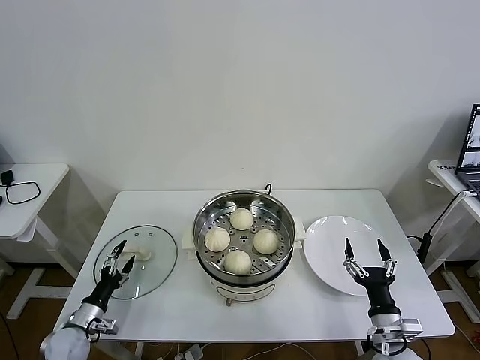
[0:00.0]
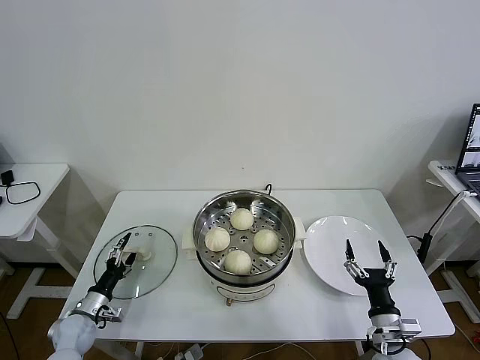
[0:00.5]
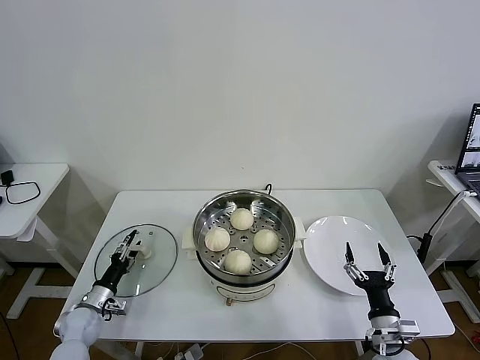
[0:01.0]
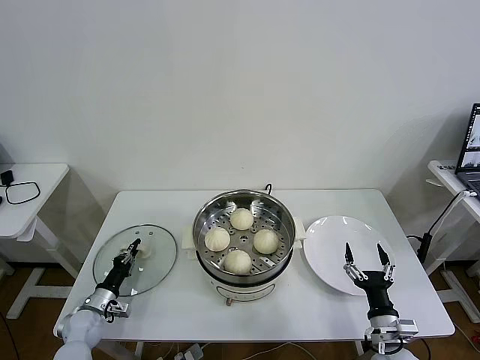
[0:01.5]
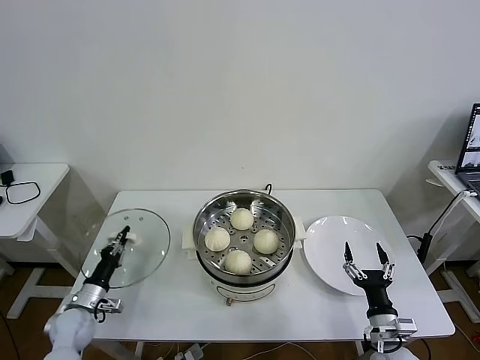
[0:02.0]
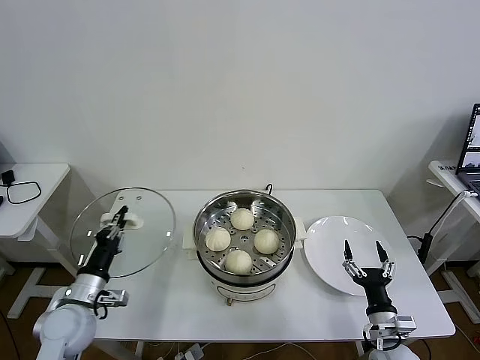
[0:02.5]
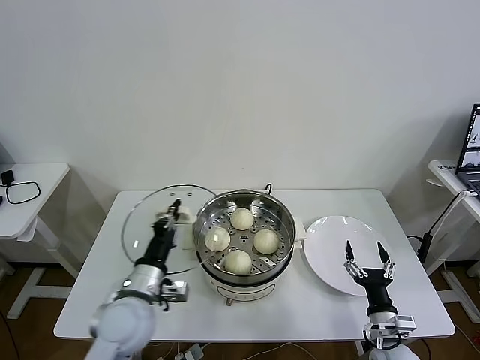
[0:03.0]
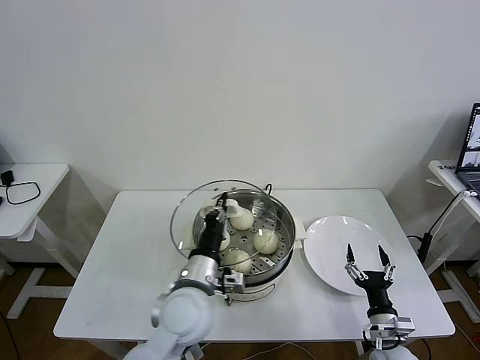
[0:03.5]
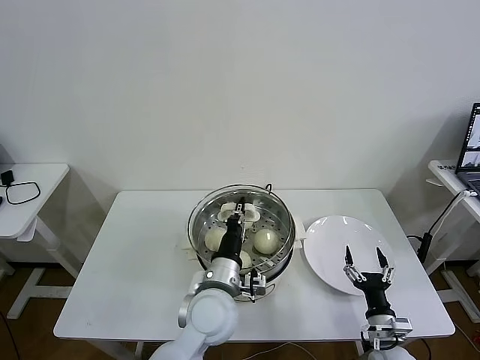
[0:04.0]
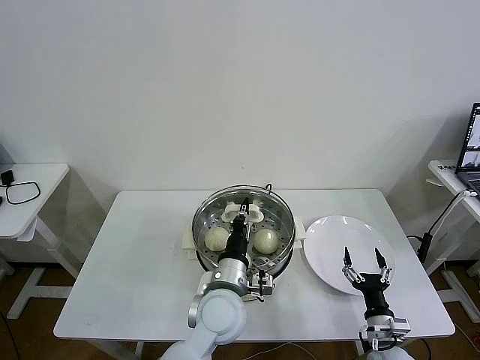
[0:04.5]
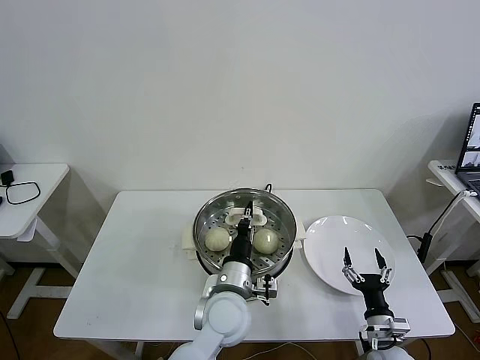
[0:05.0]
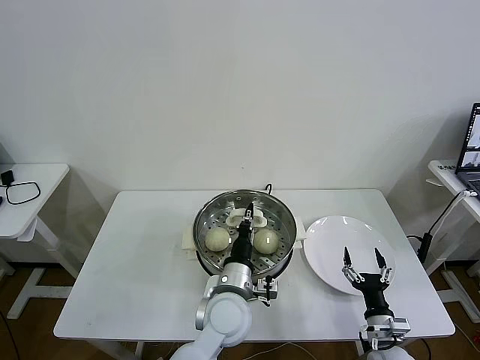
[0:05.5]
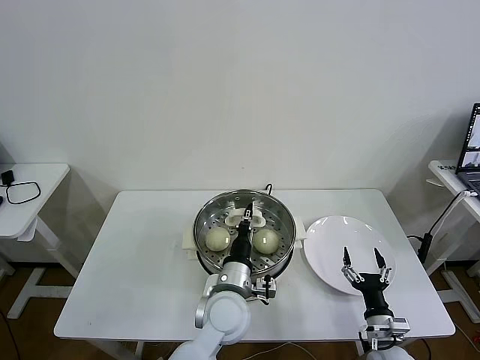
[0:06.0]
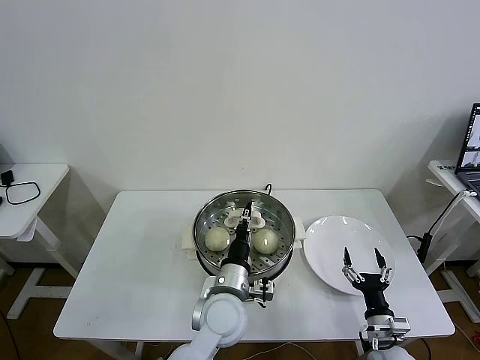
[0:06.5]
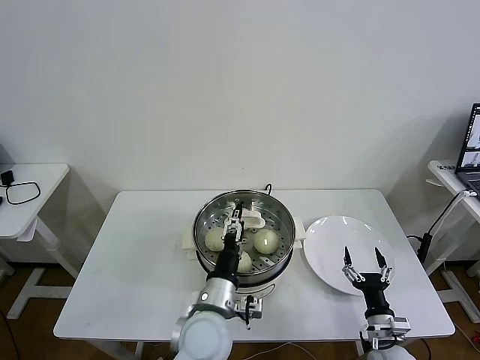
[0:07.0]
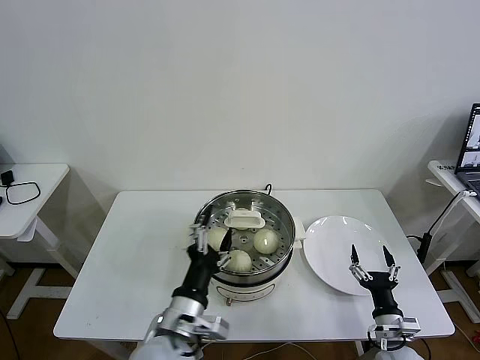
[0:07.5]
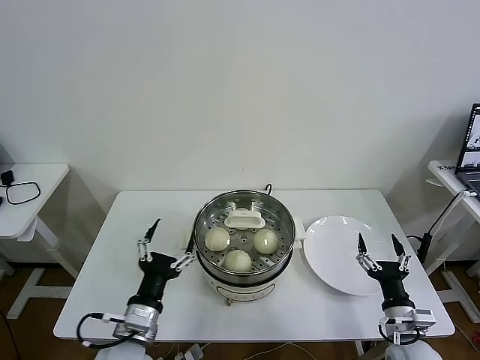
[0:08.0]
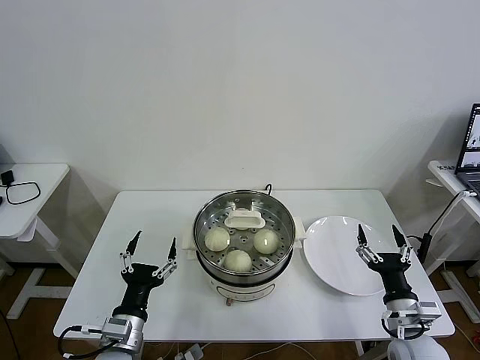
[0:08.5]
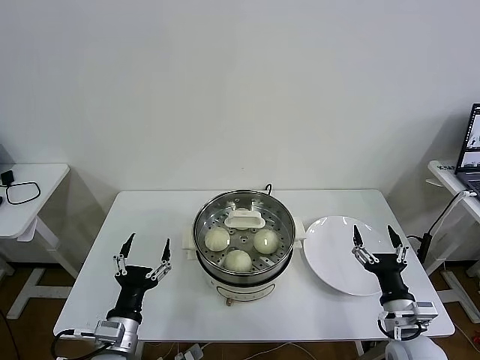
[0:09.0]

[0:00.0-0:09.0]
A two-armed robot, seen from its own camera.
Task of the whole recording: take steamed baozi put them in steamer then cover it.
Step, 0:02.0 to 0:06.5: Place the pot lid on the steamer with left gripper.
0:00.0 to 0:02.0: The left gripper closes up.
0:02.0 to 0:04.5: The left gripper goes approximately 40 cm to the right and upward.
0:04.5 to 0:07.0: The left gripper opens up.
0:07.0 to 0:09.0: The right gripper shifts some 10 cm upward. The left gripper shifts about 20 cm to the left.
